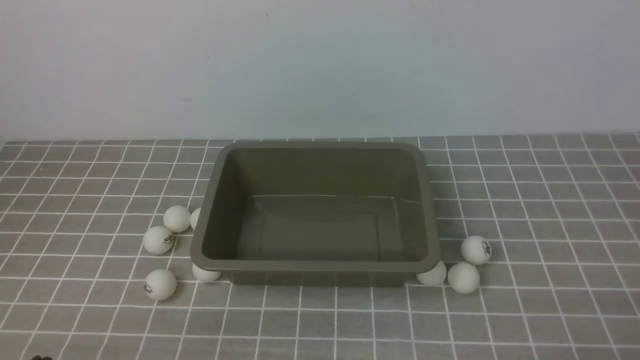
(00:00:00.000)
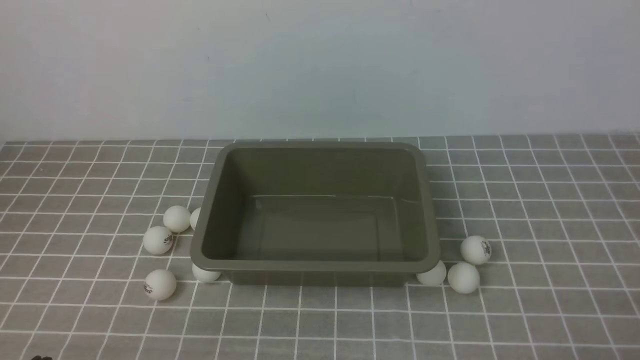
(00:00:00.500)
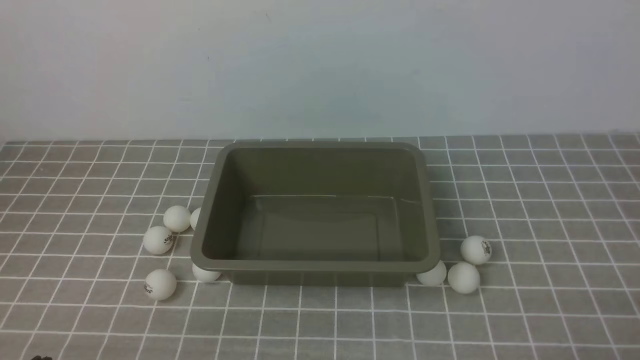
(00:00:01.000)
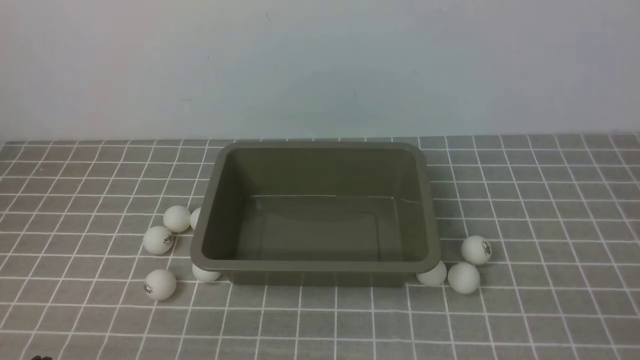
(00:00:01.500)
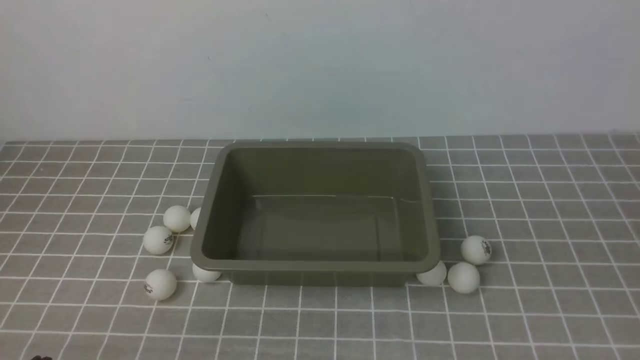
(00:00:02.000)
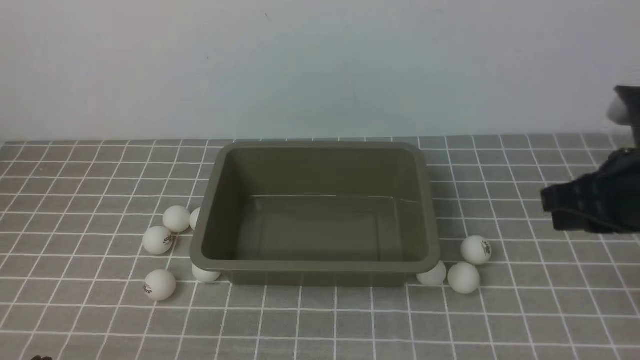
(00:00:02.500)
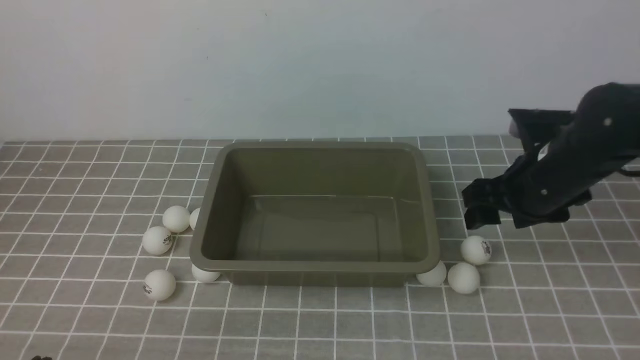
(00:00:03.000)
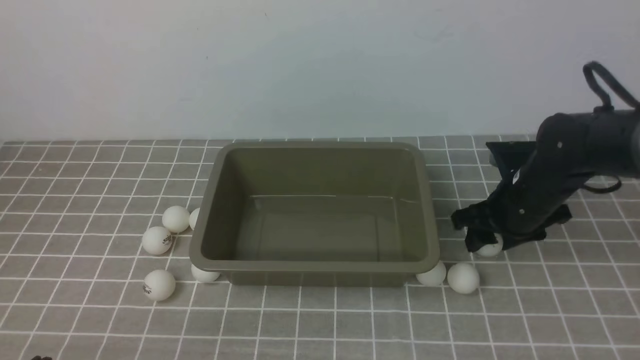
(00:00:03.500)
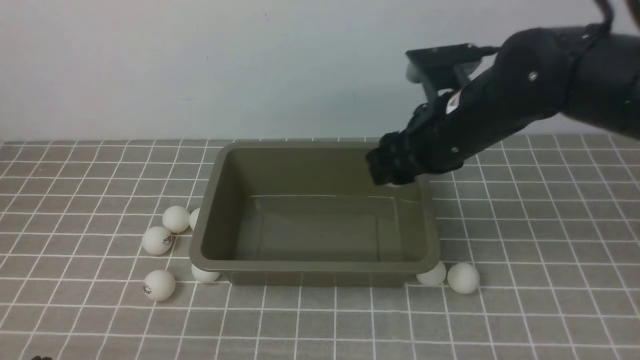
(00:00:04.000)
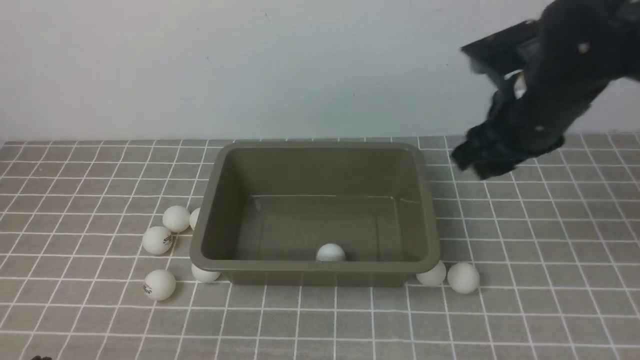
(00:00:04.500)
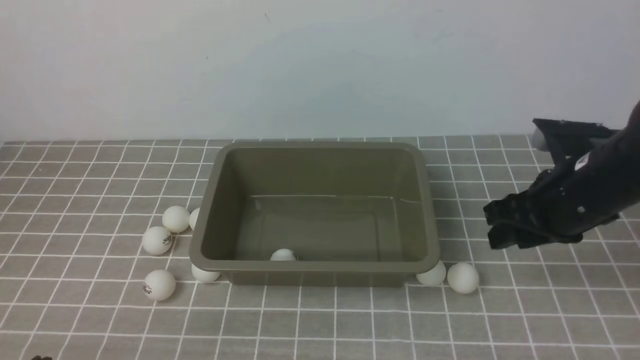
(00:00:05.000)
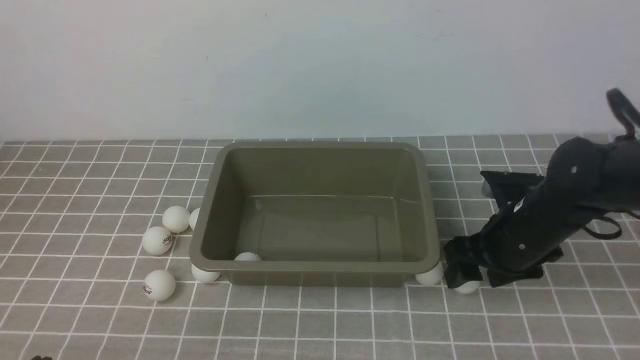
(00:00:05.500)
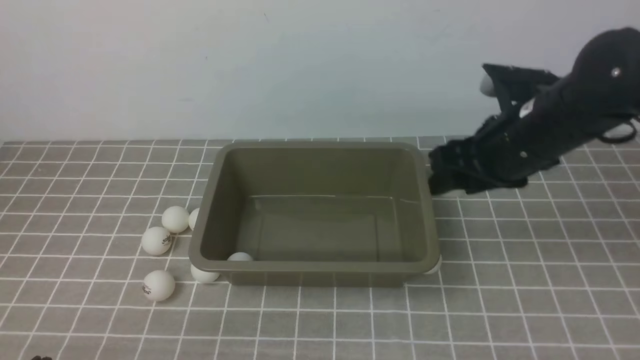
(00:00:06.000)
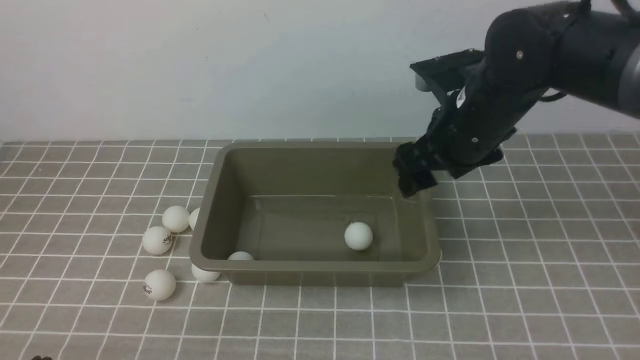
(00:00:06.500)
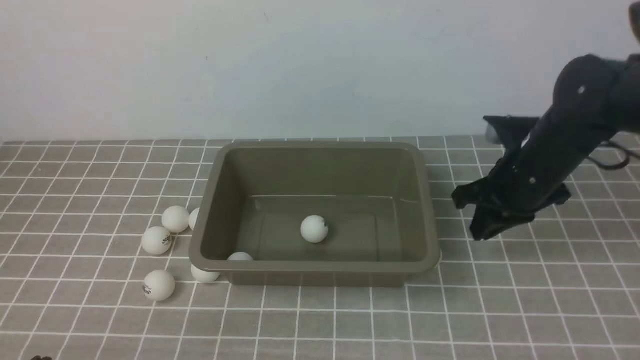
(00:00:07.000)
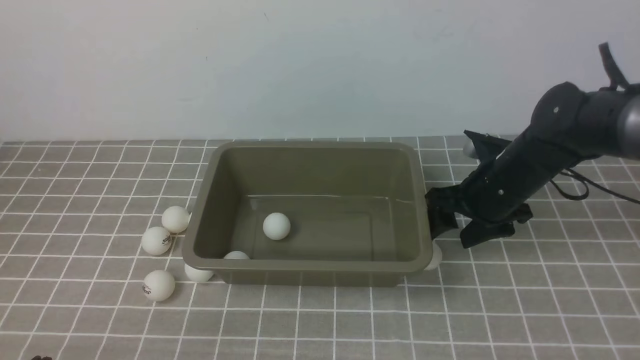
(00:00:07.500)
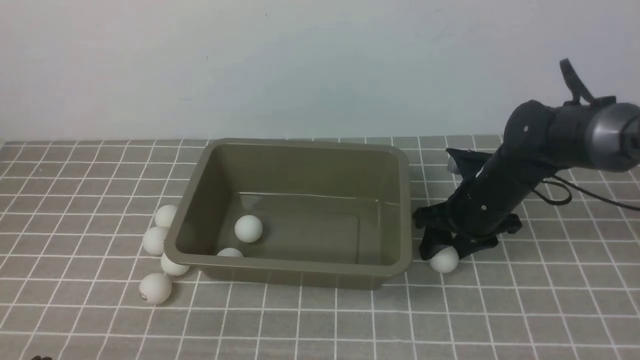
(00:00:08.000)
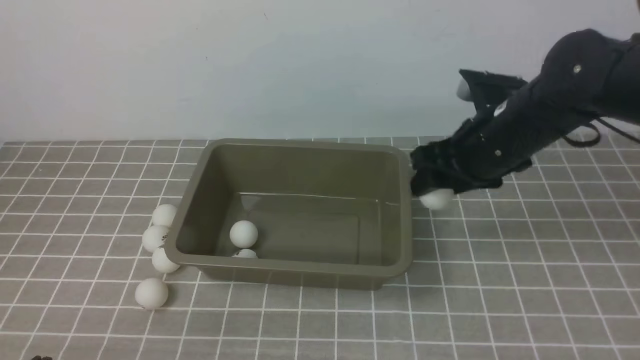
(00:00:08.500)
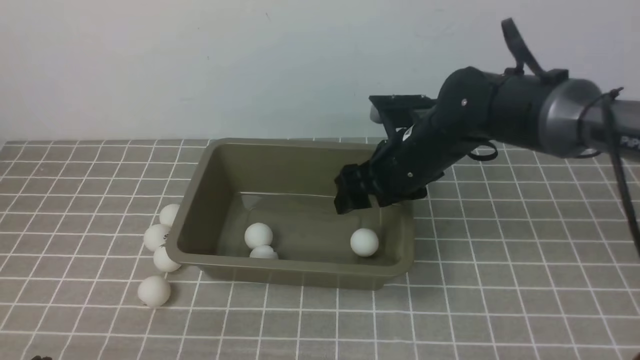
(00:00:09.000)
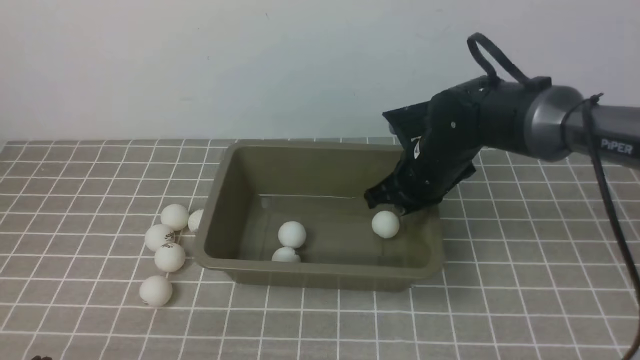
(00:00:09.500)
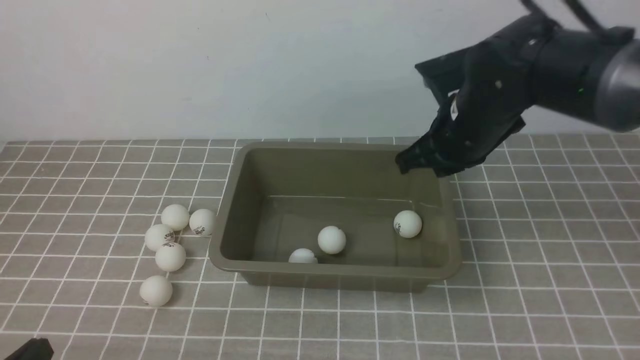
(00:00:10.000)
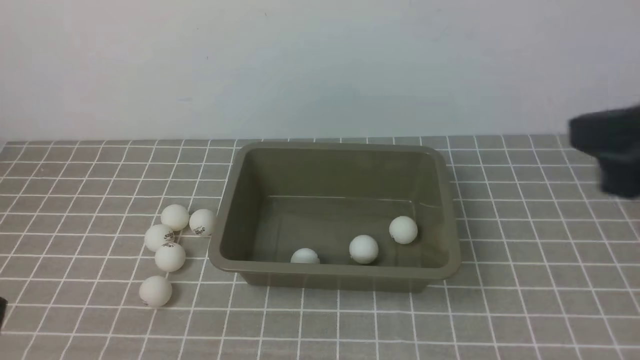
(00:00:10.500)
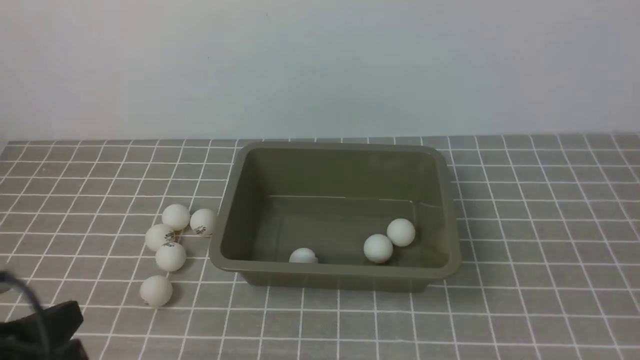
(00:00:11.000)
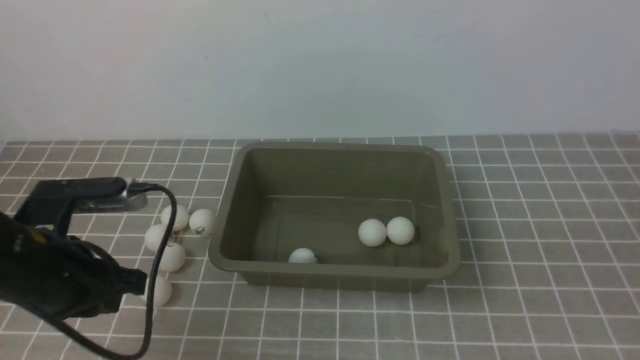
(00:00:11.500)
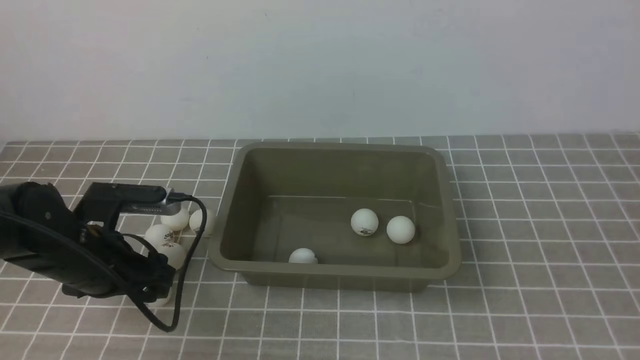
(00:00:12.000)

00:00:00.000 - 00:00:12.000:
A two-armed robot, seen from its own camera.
Step, 00:00:00.000 - 00:00:03.500: use the right arm to clamp the table tennis ball closest to it.
Step, 00:00:04.500 - 00:00:05.500: use the right arm to clamp the table tennis ball closest to it.
Step, 00:00:06.500 - 00:00:08.000: use the right arm to clamp the table tennis ball closest to it.
Step, 00:00:08.500 - 00:00:09.000: use the right arm to put the table tennis ball into the box.
00:00:02.000 - 00:00:04.000: The right gripper shifts approximately 30 cm forward and to the left, and opens.
00:00:04.000 - 00:00:06.000: The right gripper moves some 10 cm downward and comes back.
00:00:06.000 - 00:00:08.000: The right gripper is displaced downward by approximately 10 cm, and closes, then reopens.
00:00:08.000 - 00:00:10.000: The right gripper moves upward, approximately 15 cm, and closes its fingers.
00:00:10.000 - 00:00:12.000: The right gripper shifts about 35 cm backward and to the right. The left gripper travels forward by about 20 cm, and opens up.

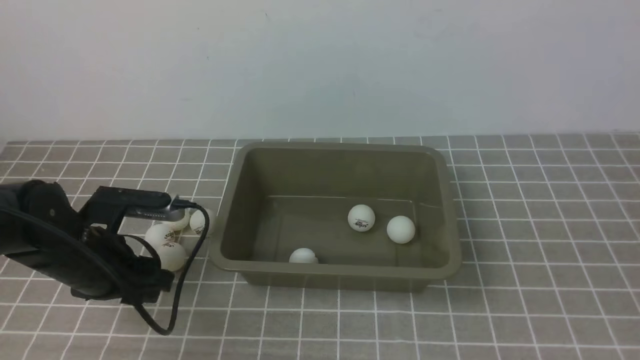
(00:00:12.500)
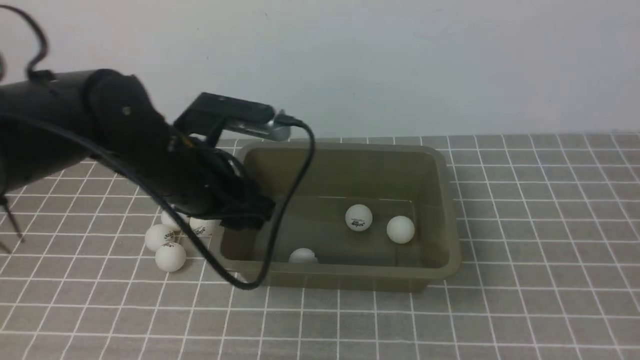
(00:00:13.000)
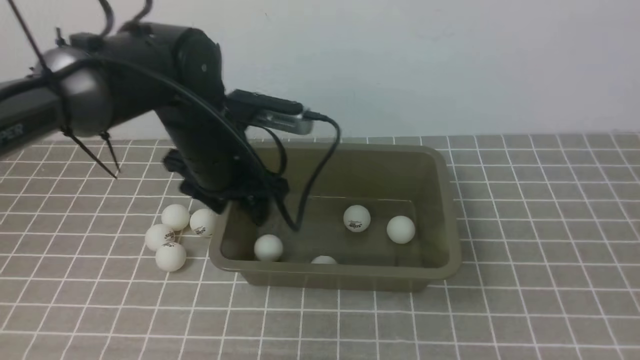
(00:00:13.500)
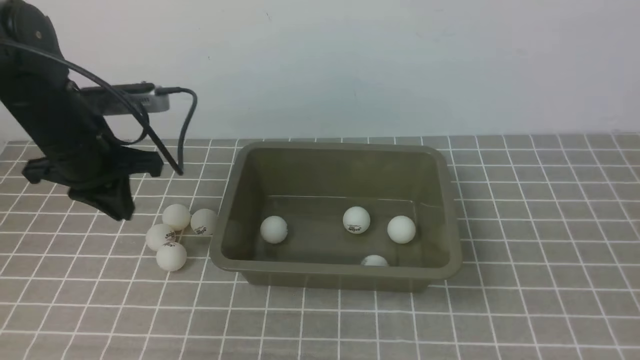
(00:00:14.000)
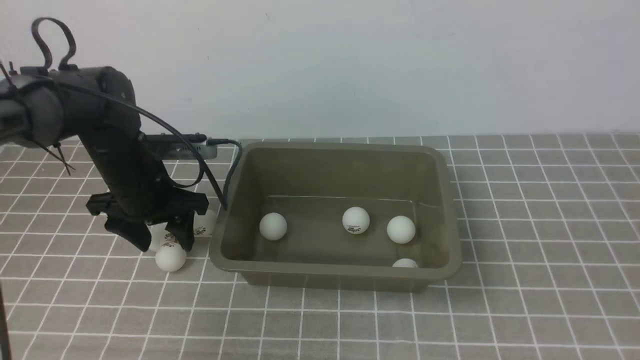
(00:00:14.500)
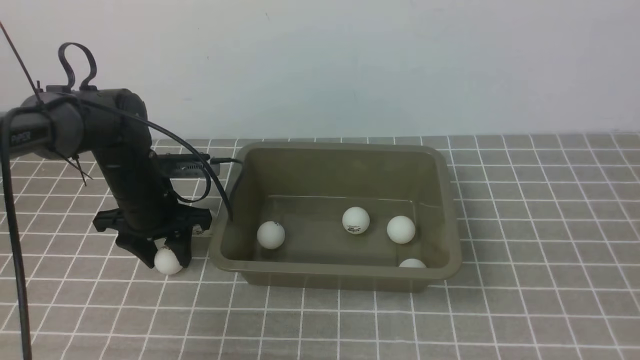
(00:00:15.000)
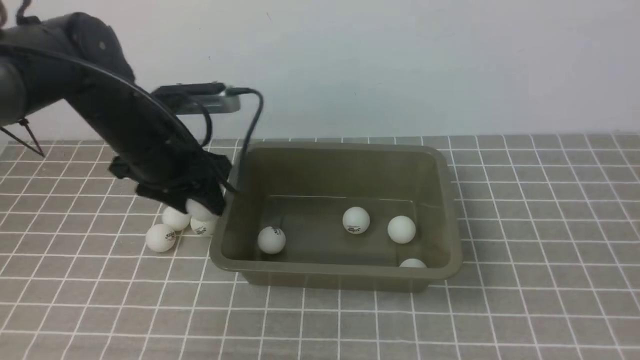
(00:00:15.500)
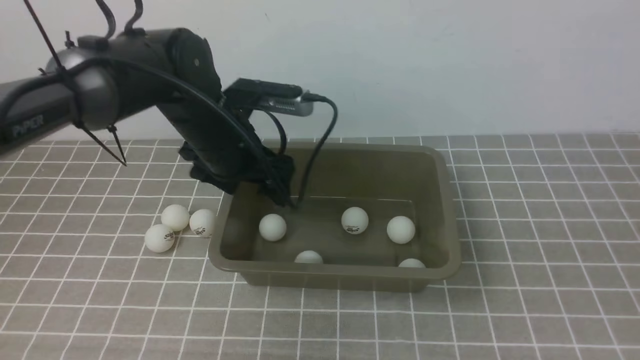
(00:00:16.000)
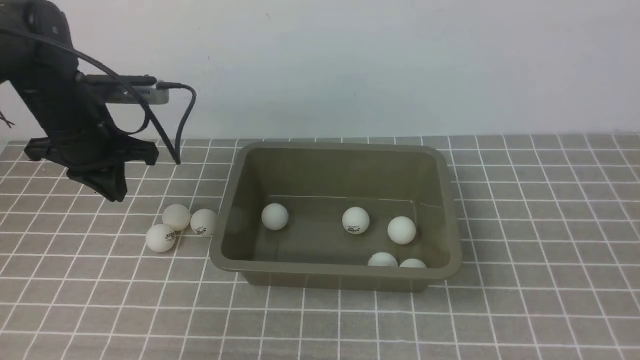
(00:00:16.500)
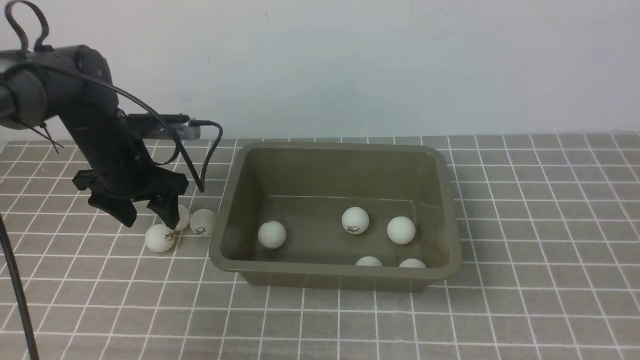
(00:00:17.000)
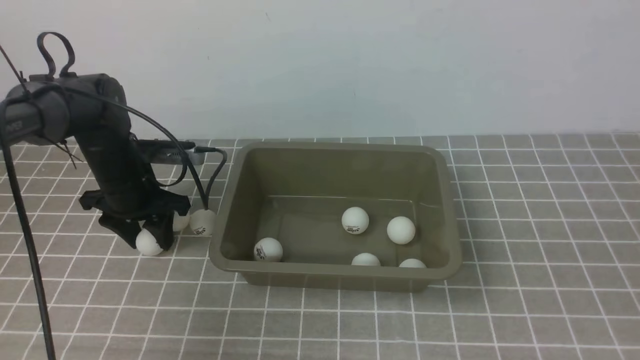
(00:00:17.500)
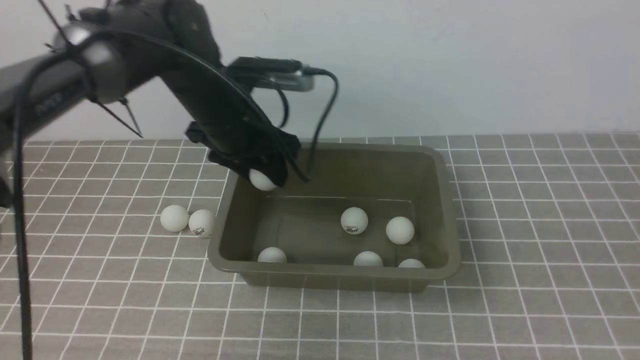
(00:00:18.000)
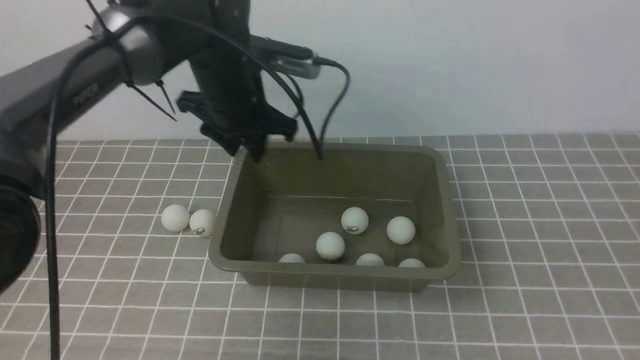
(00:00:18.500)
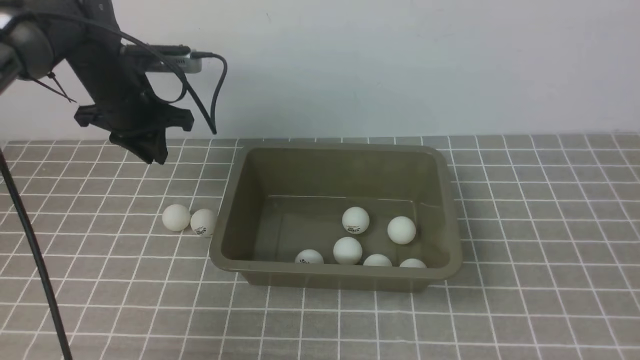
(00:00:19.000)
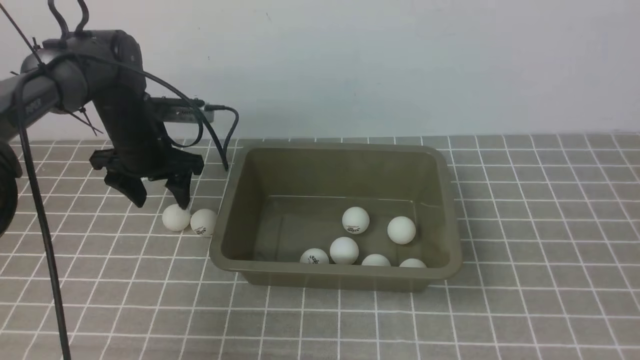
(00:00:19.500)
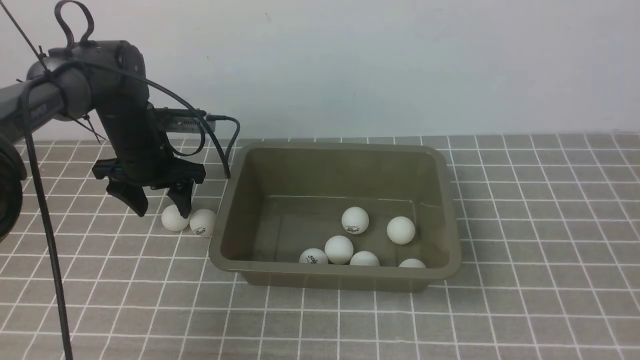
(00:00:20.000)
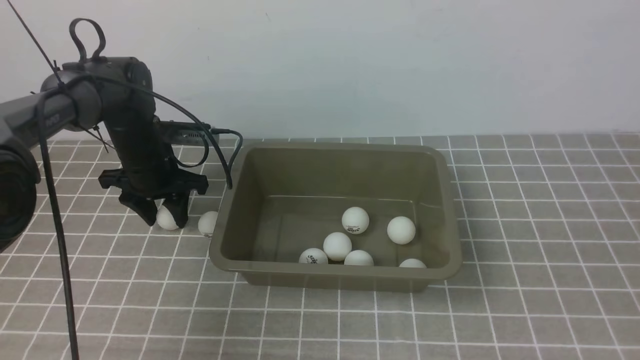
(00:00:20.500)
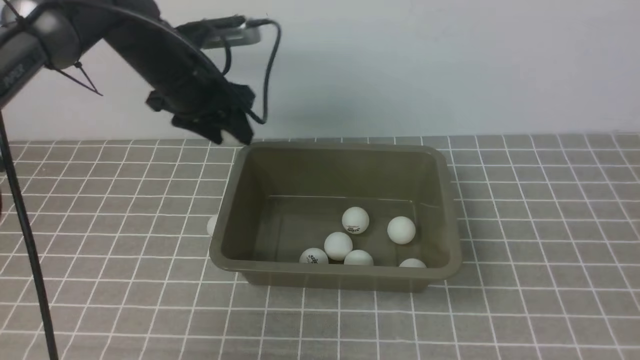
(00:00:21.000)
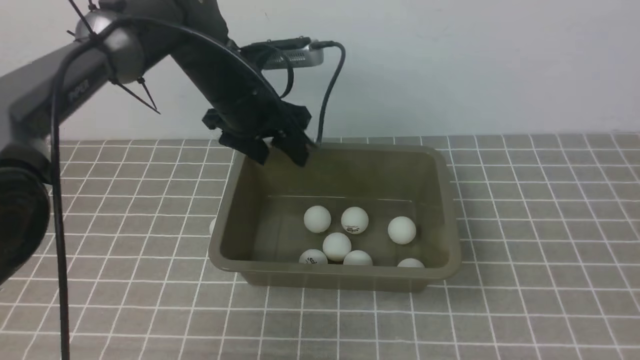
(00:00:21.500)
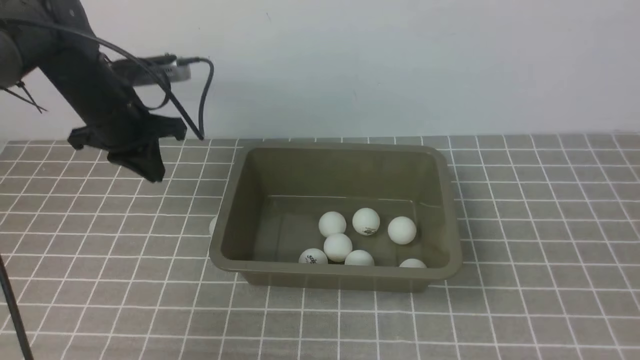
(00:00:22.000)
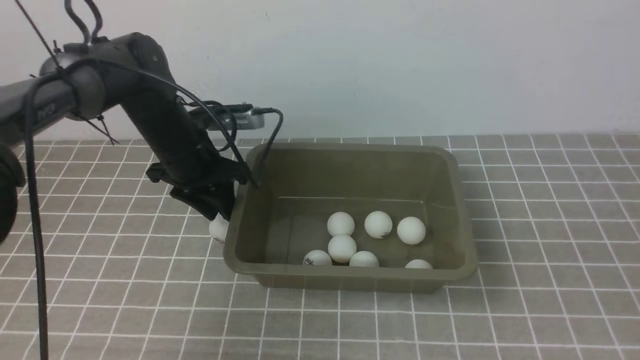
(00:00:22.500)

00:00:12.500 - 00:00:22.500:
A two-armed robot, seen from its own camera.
Step, 00:00:13.500 - 00:00:15.000: use the left arm to clamp the table tennis ball closest to it.
Step, 00:00:16.000 - 00:00:17.500: use the left arm to clamp the table tennis ball closest to it.
Step, 00:00:18.500 - 00:00:20.500: use the left arm to clamp the table tennis ball closest to it.
Step, 00:00:21.000 - 00:00:21.500: use the left arm to put the table tennis ball into the box.
00:00:12.500 - 00:00:14.500: The left gripper is displaced forward by roughly 10 cm, and closes and opens again.
00:00:14.500 - 00:00:16.500: The left gripper heads upward, covering roughly 5 cm, goes to the right and returns, roughly 10 cm each way, and closes its fingers.
00:00:16.500 - 00:00:18.500: The left gripper heads to the right, covering approximately 15 cm, and opens up.
00:00:18.500 - 00:00:20.500: The left gripper travels downward and to the left by roughly 15 cm.
00:00:20.500 - 00:00:22.500: The left gripper goes approximately 5 cm to the right, reaches some 10 cm upward, then returns, and closes and opens again.
